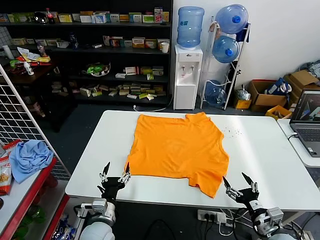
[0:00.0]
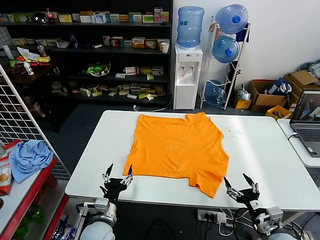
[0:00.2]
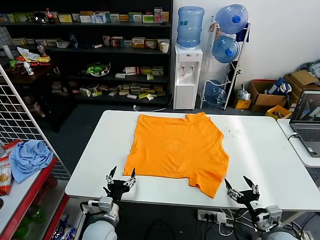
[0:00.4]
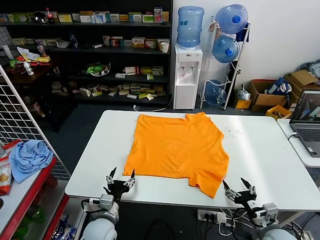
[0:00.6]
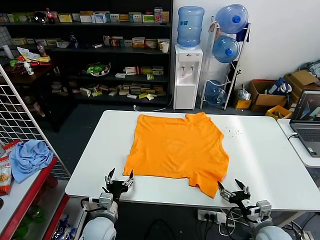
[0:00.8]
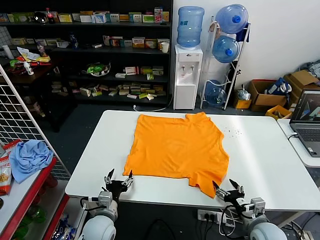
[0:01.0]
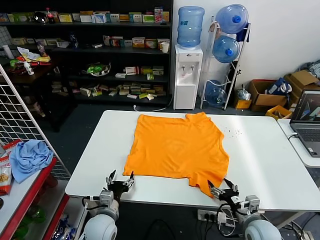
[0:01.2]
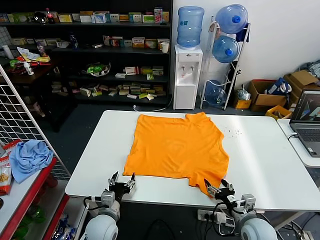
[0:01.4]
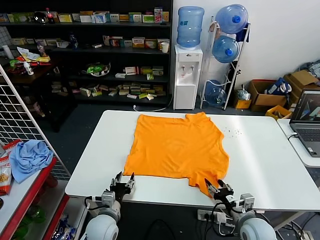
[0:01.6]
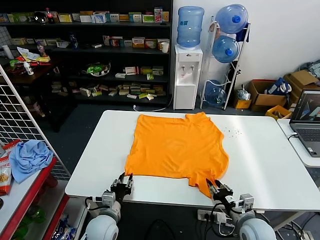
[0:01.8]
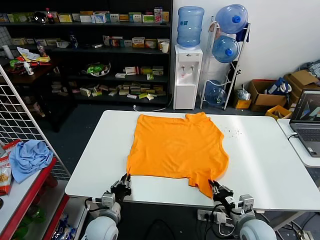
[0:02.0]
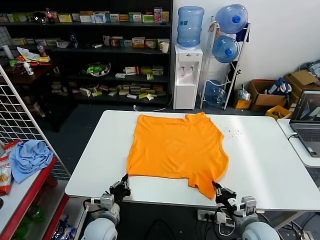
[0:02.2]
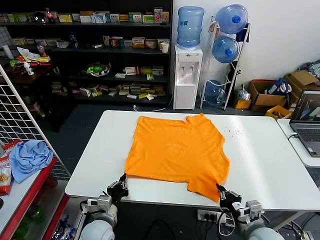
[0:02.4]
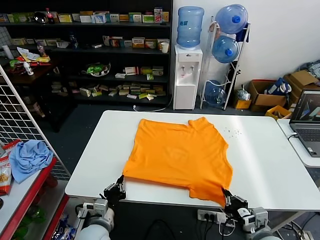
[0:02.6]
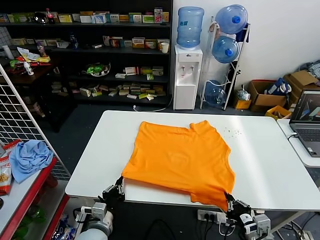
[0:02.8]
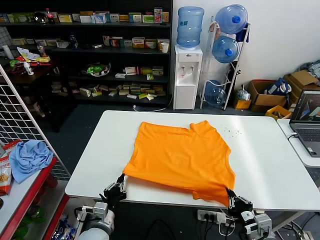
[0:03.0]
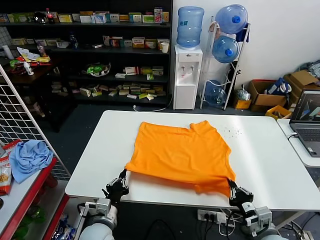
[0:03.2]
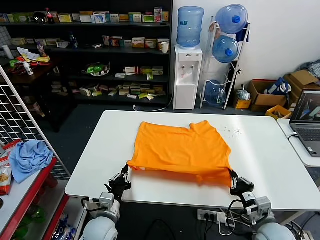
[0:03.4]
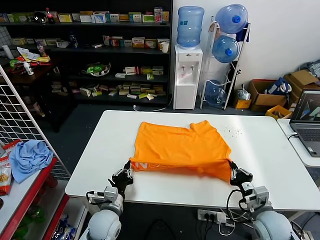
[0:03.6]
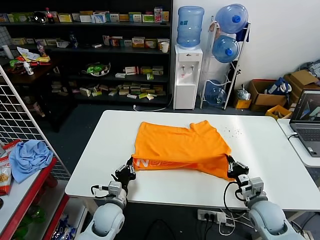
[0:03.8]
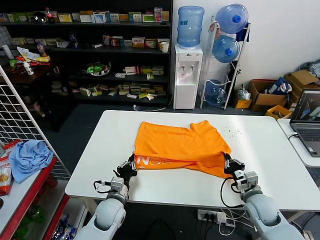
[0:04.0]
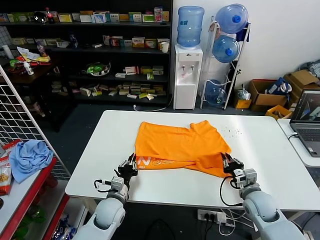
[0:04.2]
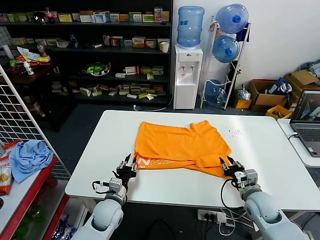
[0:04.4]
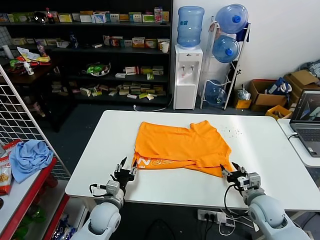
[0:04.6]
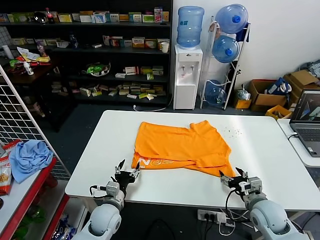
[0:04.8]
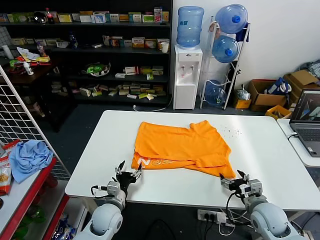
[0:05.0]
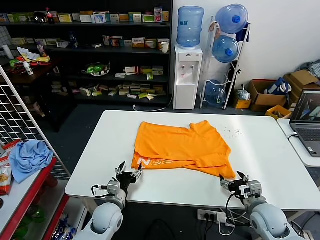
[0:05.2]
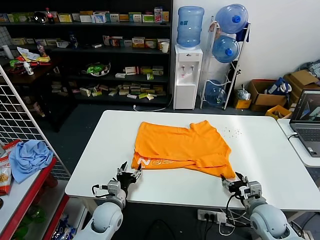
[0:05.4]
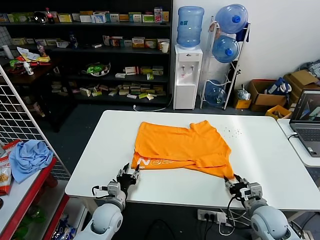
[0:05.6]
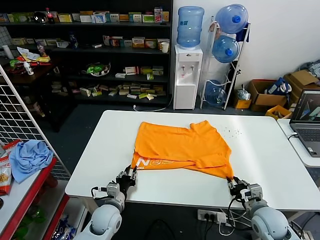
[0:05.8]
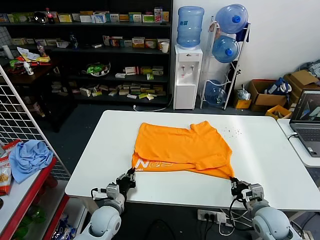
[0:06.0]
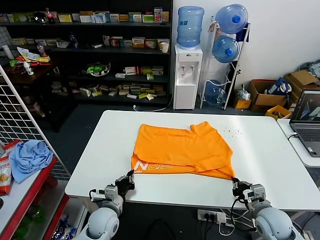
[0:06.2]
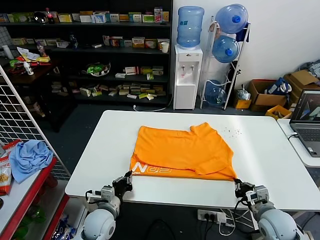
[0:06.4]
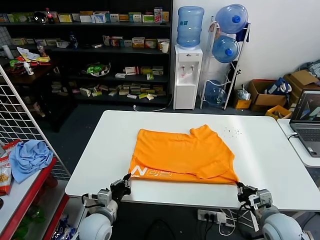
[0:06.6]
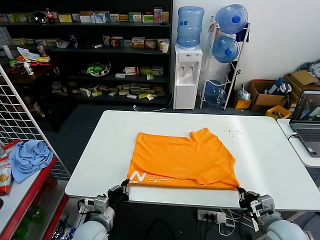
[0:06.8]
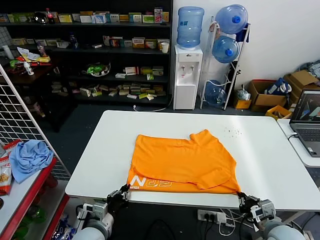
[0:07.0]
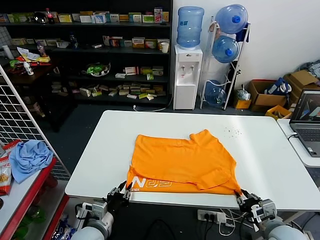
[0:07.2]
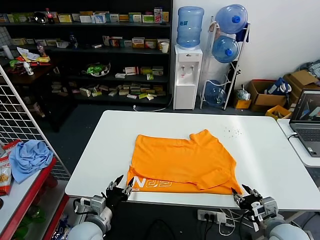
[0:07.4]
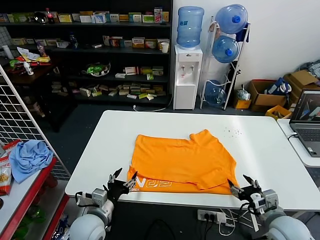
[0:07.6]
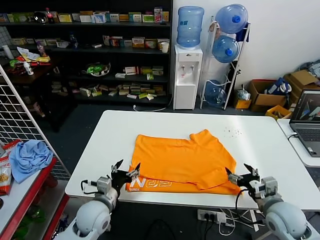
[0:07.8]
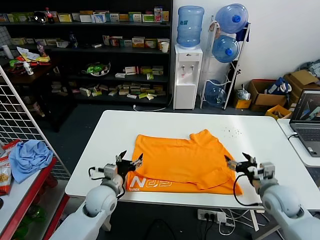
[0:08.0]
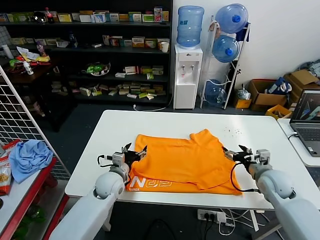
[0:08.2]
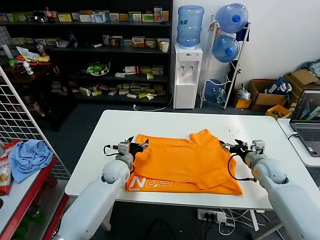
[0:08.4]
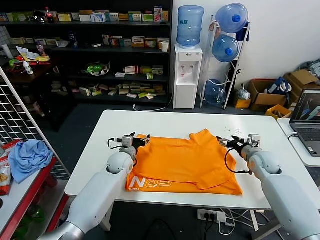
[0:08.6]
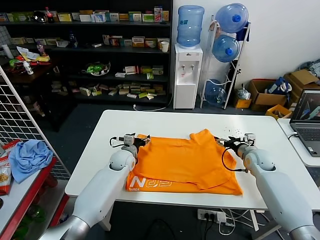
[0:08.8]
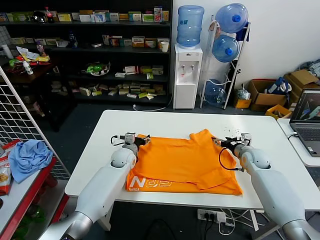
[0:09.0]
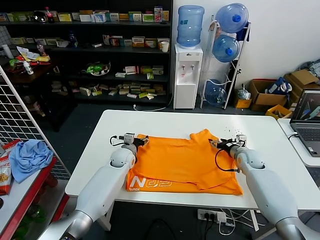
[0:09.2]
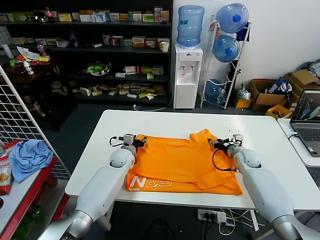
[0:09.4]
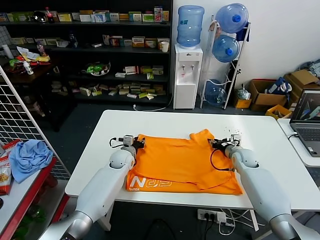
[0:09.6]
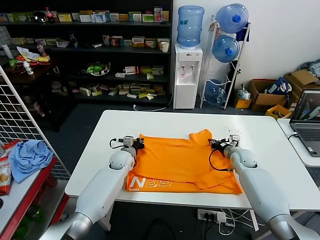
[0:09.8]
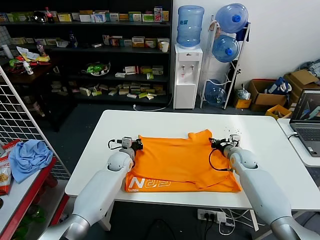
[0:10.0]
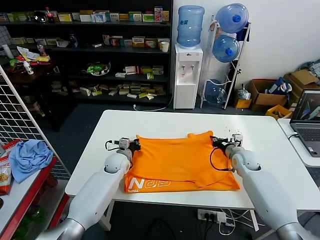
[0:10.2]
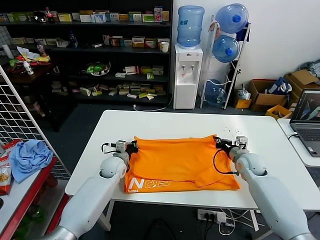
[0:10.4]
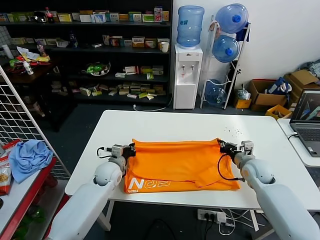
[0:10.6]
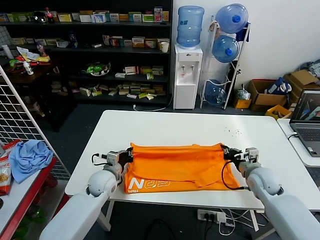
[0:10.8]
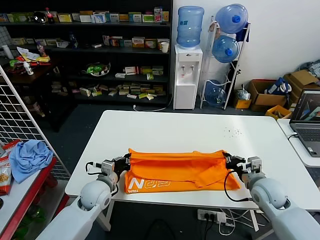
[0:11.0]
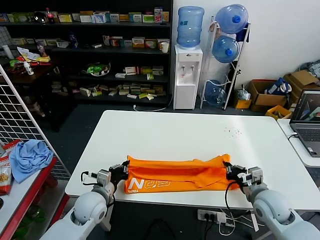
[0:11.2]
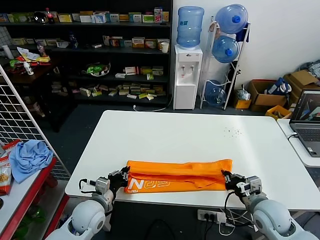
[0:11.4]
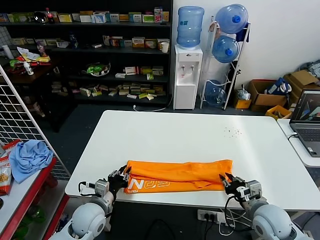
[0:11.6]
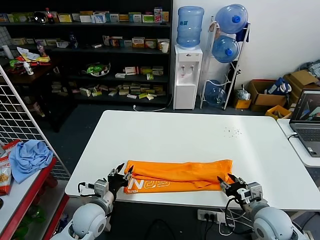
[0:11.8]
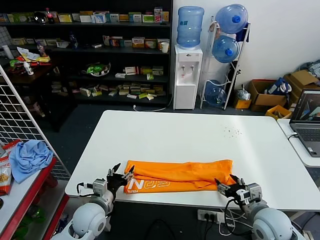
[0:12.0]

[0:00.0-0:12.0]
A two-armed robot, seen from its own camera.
Task of the whole recording: fold and organize the clothes.
Step, 0:00.0 to 0:02.2: use both grippers simultaneously to clamp the lower edge of the clothing fabric.
Step, 0:02.6 to 0:04.4: use both grippers to drag the lower edge of the fabric forward and fold it over the upper edge.
Step, 0:04.6 to 0:07.6: Drag the clothes downward with both gripper.
Step, 0:07.8 to 0:09.8: use both grippers simultaneously to clamp the upper edge of the clothing fabric.
0:01.6 to 0:03.0: The right gripper moves backward and upward, some 10 cm, and closes up. Meanwhile the left gripper shifts by roughly 5 cm, and closes up.
0:03.0 to 0:04.4: The two grippers go some 10 cm forward. The left gripper opens up. The right gripper opens its fingers.
0:04.4 to 0:06.0: The right gripper closes; the left gripper opens, then closes once more.
0:06.0 to 0:07.6: The left gripper goes approximately 10 cm upward and backward, and opens its fingers. The right gripper heads upward, covering roughly 5 cm, and opens.
0:07.6 to 0:09.0: Both grippers move forward, about 25 cm.
0:09.0 to 0:10.4: The left gripper moves roughly 5 cm, and closes its fingers. The right gripper moves roughly 5 cm, and closes.
0:10.4 to 0:12.0: Both grippers move backward, about 20 cm. The right gripper opens its fingers. The left gripper opens its fingers.

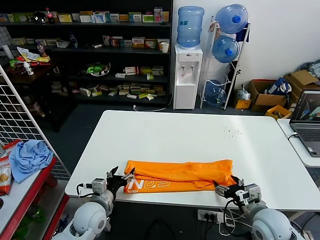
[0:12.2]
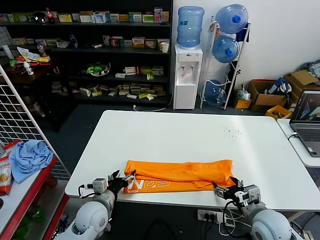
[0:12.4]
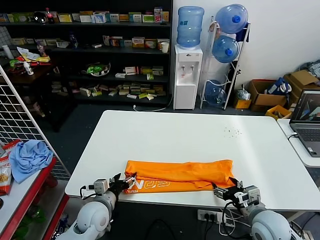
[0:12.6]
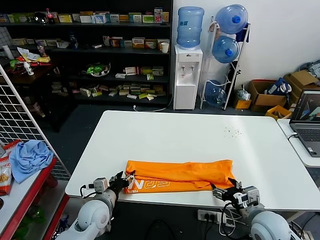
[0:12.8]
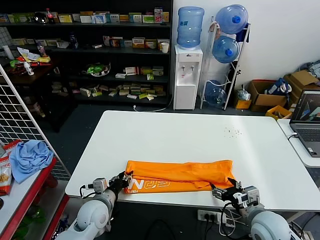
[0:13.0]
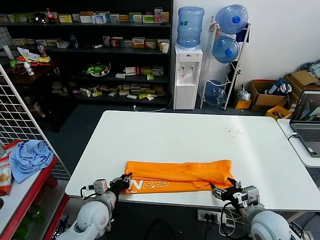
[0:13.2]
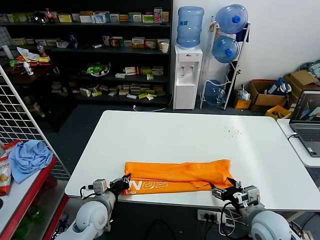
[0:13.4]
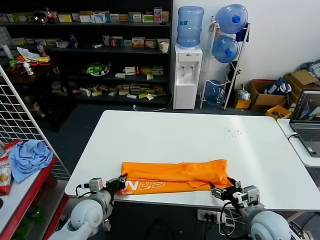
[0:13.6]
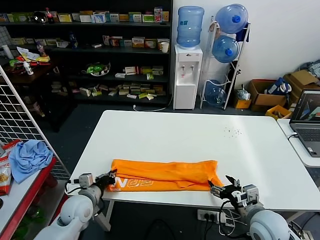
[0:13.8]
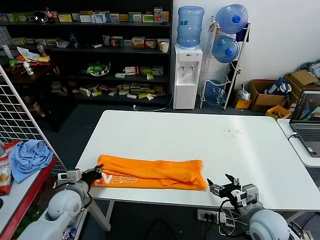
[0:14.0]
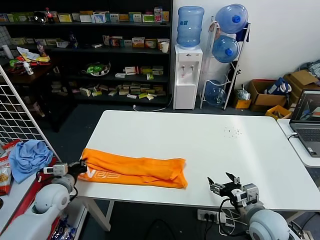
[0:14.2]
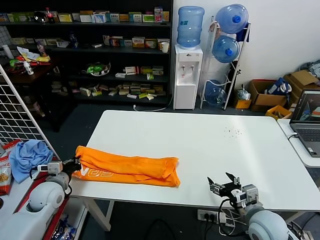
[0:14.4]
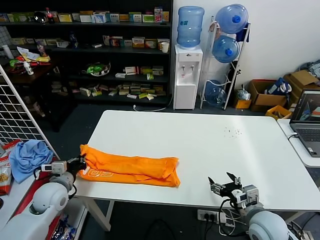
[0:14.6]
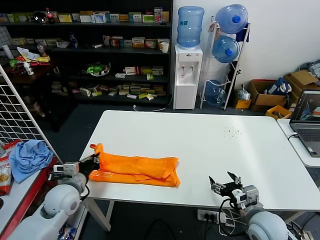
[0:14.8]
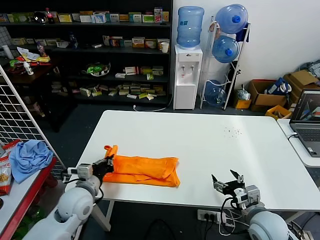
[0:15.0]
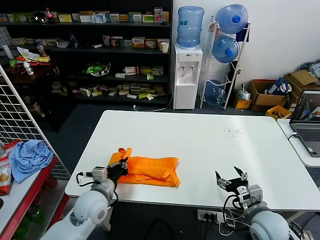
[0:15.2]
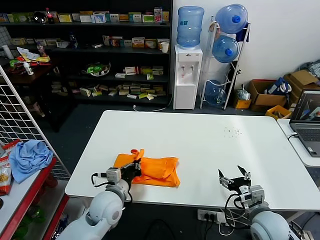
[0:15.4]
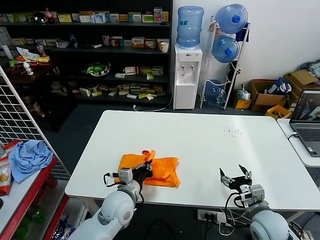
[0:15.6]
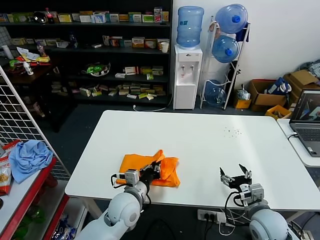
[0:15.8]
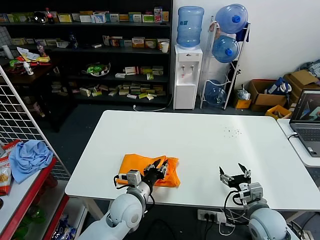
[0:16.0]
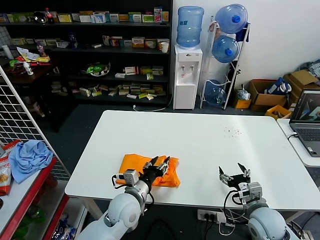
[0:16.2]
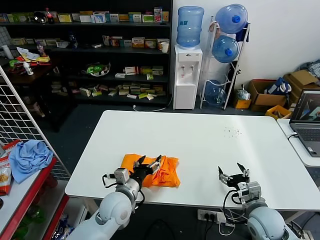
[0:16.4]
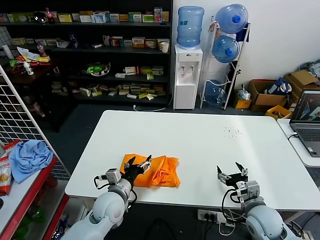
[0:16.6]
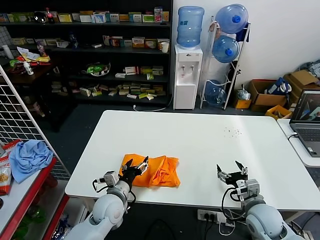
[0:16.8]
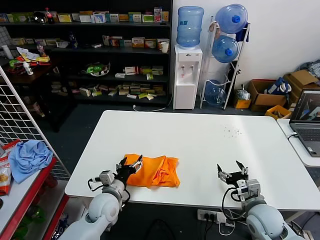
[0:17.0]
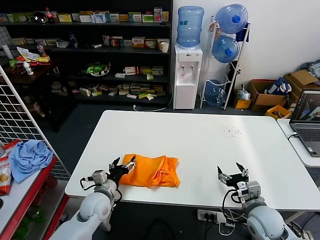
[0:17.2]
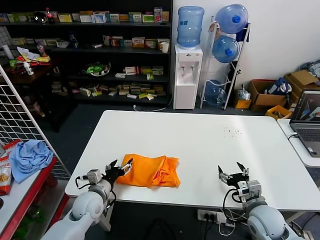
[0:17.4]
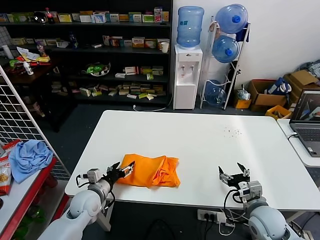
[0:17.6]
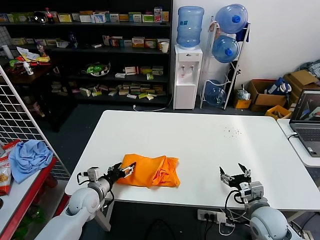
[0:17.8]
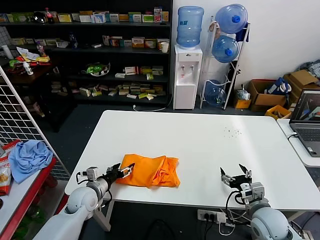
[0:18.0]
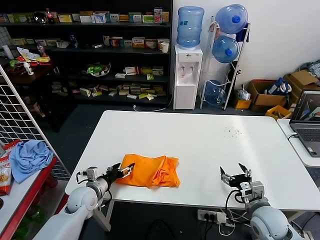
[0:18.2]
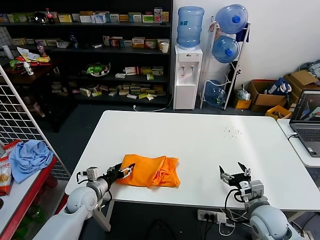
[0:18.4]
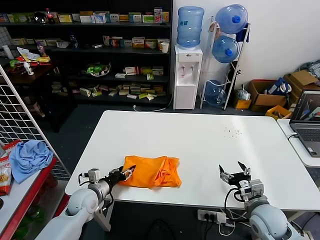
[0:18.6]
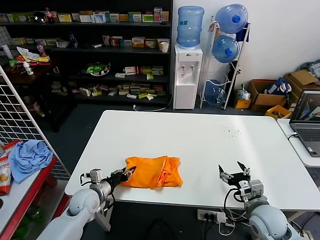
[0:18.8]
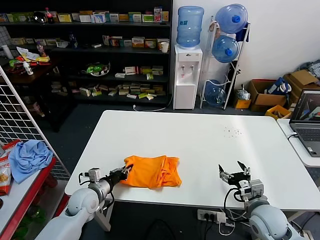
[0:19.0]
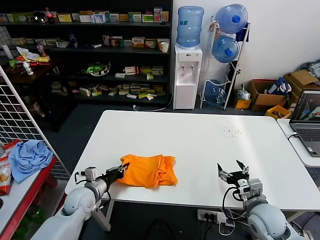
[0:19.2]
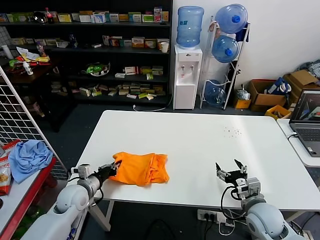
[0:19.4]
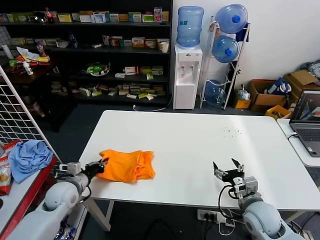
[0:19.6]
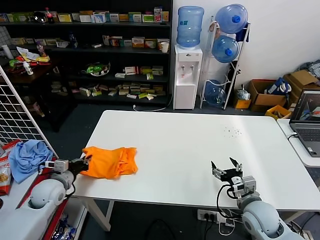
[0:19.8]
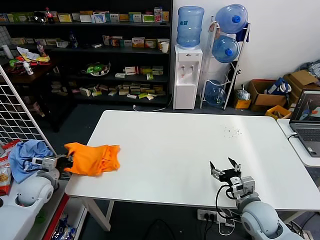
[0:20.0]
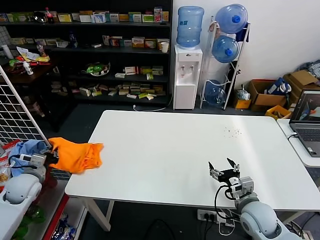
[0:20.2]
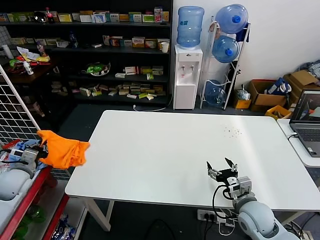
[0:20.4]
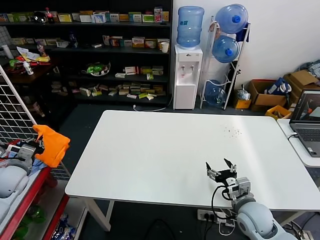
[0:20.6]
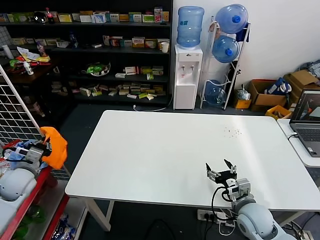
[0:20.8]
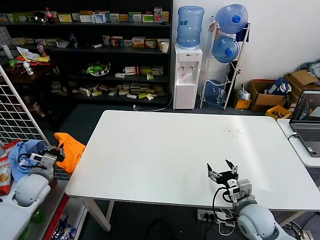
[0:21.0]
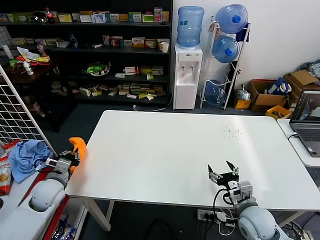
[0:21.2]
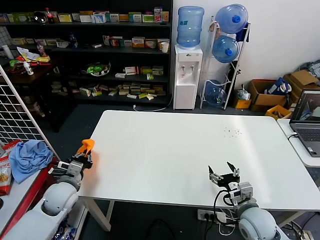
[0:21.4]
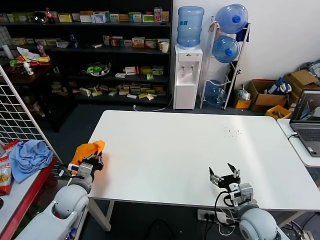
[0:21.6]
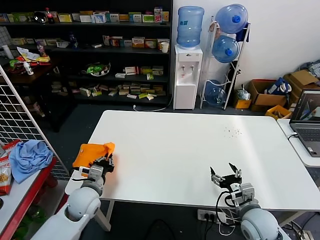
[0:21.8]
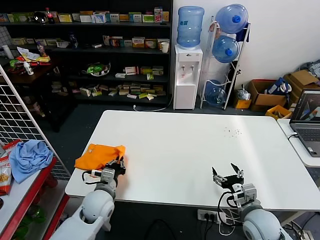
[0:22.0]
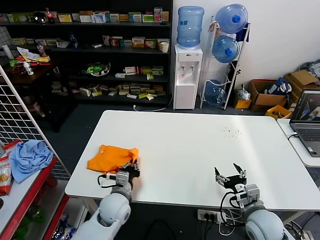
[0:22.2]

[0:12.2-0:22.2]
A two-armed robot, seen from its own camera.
Task of the whole recording: fold and organize the clothes.
Step, 0:12.4 to 0:13.6: use the left gripper to clamp the left edge of the fabric.
Step, 0:13.8 to 0:16.2: use the left gripper to drag the left edge of the fabric to the left and folds it over the right edge.
0:12.2 to 0:13.6: The left gripper closes up.
0:13.6 to 0:15.0: The left gripper moves upward, roughly 5 cm, and goes to the left and returns, approximately 15 cm each way.
0:15.0 to 0:16.4: The left gripper moves to the right, roughly 15 cm, and opens.
0:16.4 to 0:18.0: The left gripper is displaced to the left by roughly 15 cm.
0:18.0 to 0:19.4: The left gripper closes up.
0:19.4 to 0:20.8: The left gripper is displaced to the left and upward by approximately 20 cm.
0:20.8 to 0:22.2: The left gripper goes about 30 cm to the right.
